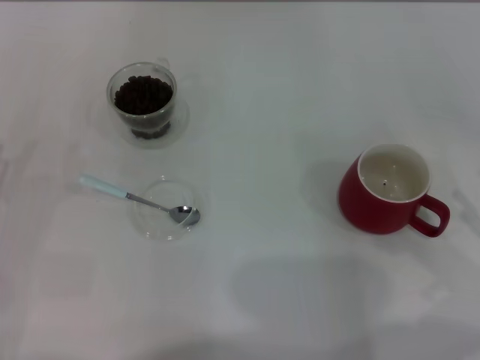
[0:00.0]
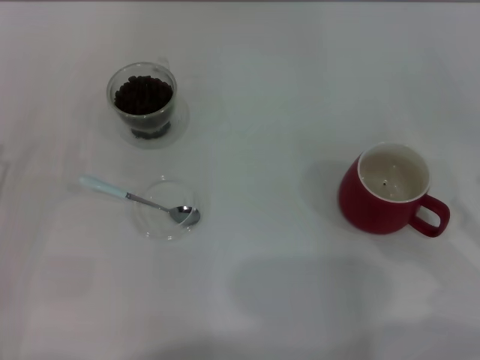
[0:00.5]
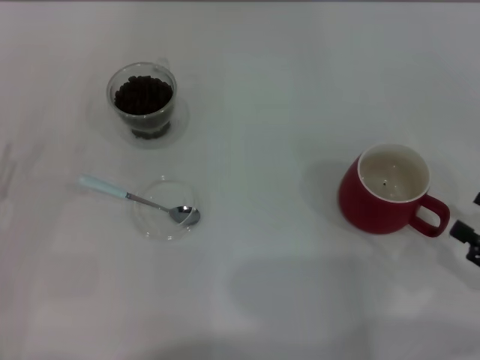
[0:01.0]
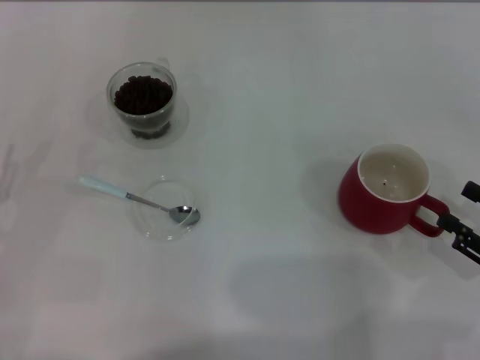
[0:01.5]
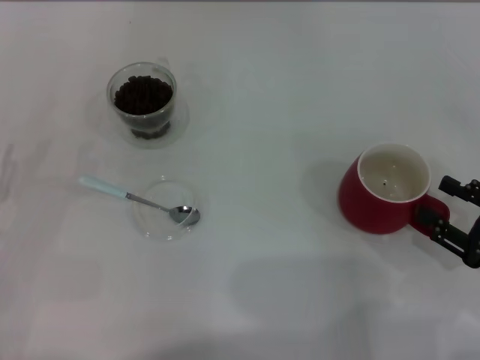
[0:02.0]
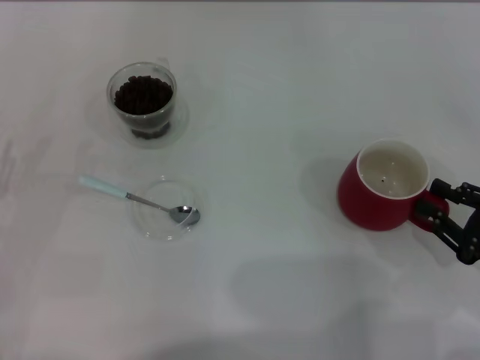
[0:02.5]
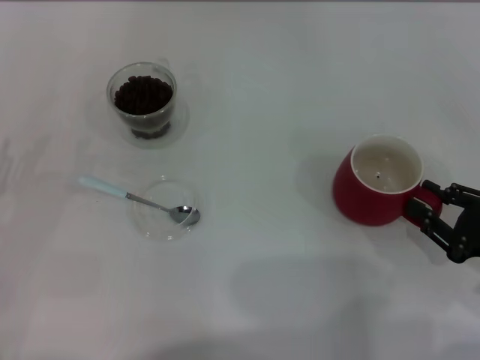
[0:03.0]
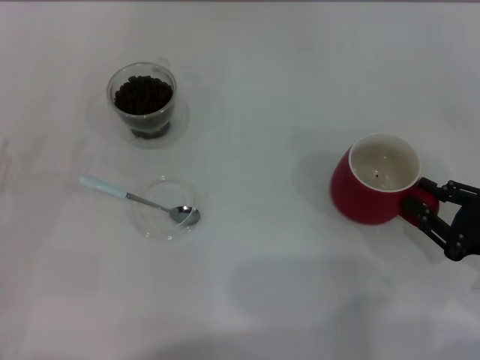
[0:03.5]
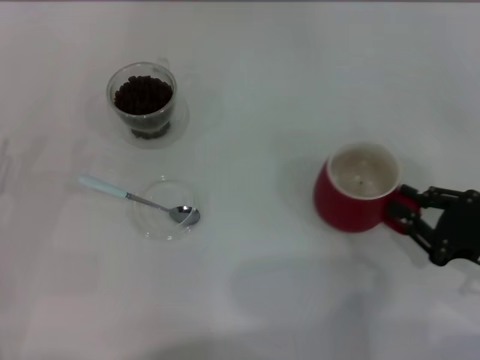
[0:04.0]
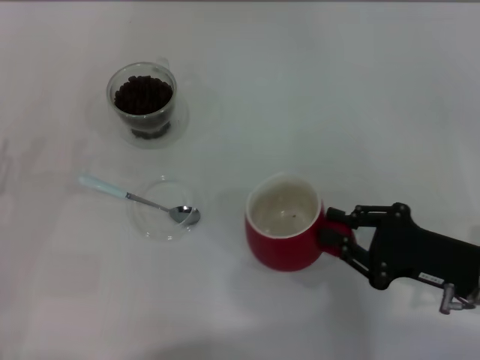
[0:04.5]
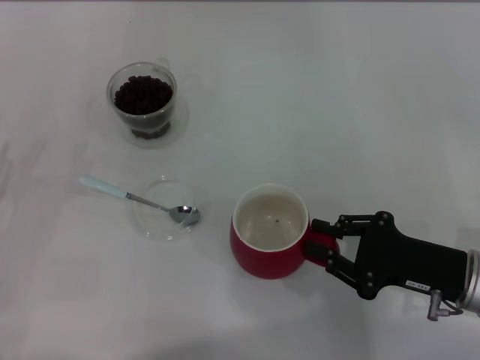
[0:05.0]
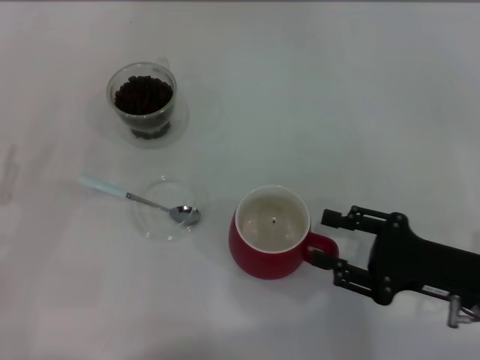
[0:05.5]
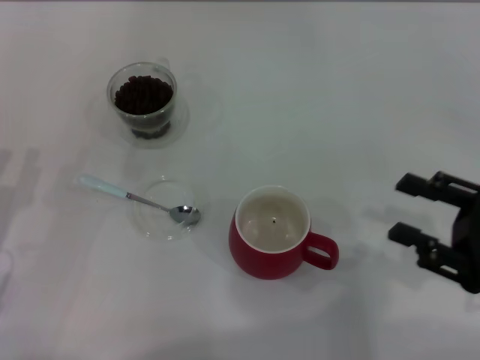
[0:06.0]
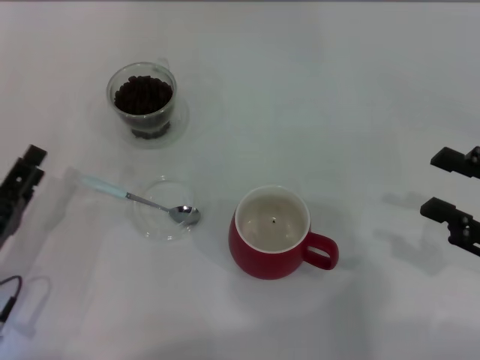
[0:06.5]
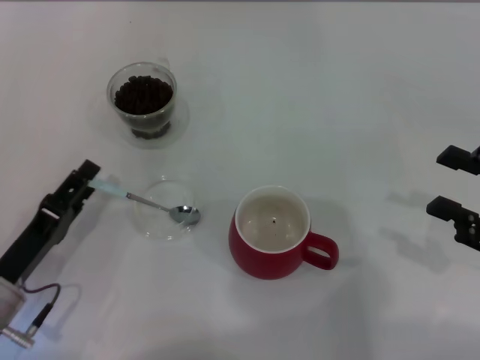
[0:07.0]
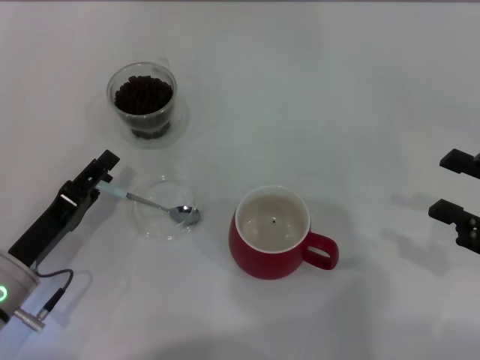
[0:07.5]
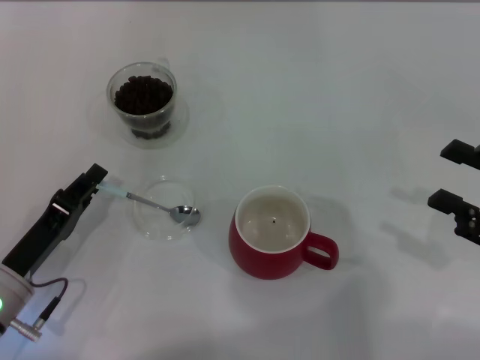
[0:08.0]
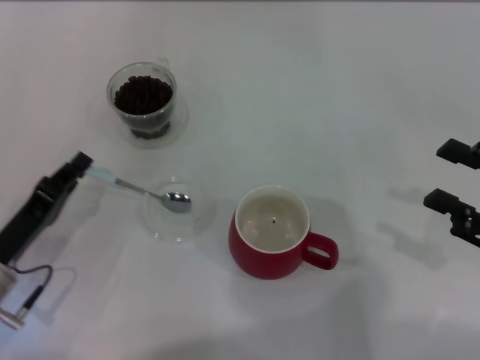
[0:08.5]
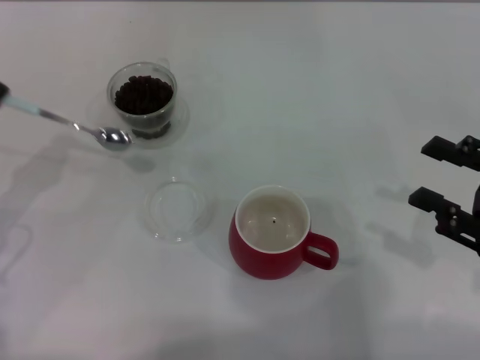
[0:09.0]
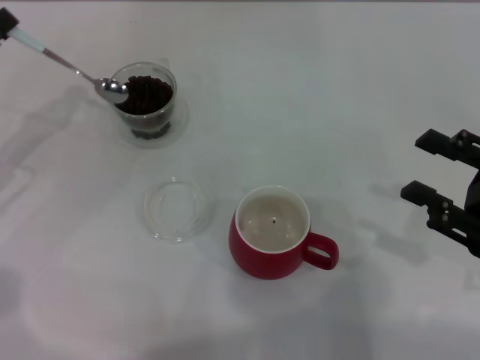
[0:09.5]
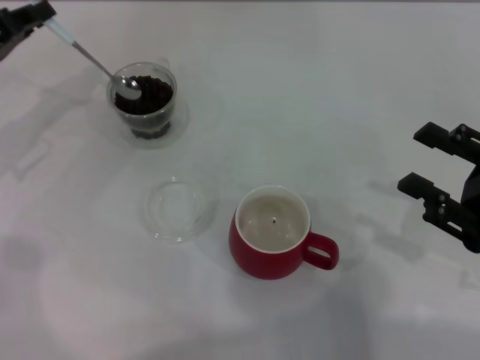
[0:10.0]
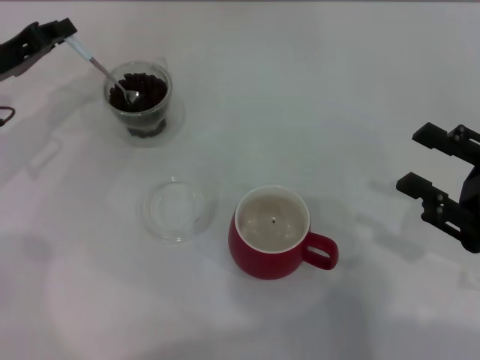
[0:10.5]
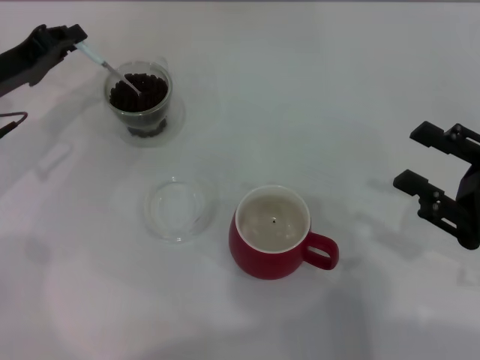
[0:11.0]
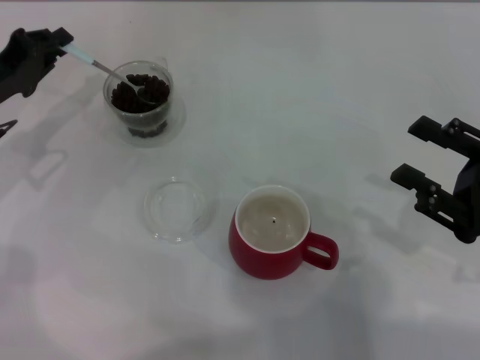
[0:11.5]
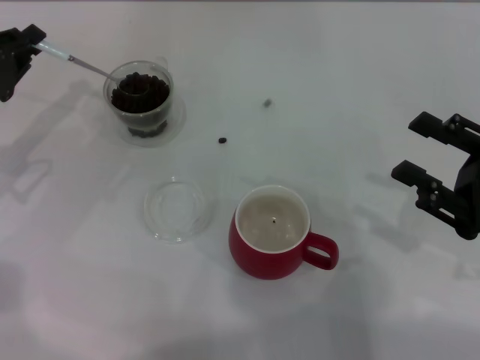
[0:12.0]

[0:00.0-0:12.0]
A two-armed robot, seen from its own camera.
Task of the whole recording: Use a blue spoon to take out the coffee beans from the glass and pour them into the red cup.
Step, 0:00.0 to 0:05.5: Move the cup to the center of view with the left gripper.
Step, 0:06.0 to 0:08.5: Pick up the spoon with the right gripper.
0:00.0 to 0:02.0: The right gripper ends up about 5 cm from where it was.
0:02.0 to 0:04.0: The right gripper closes.
0:04.0 to 0:06.0: The right gripper opens its fingers.
0:06.0 to 0:08.0: The left gripper travels to the right by some 5 cm, and closes its fingers.
0:08.0 to 0:10.0: The left gripper travels forward and upward by roughly 20 cm, and closes up.

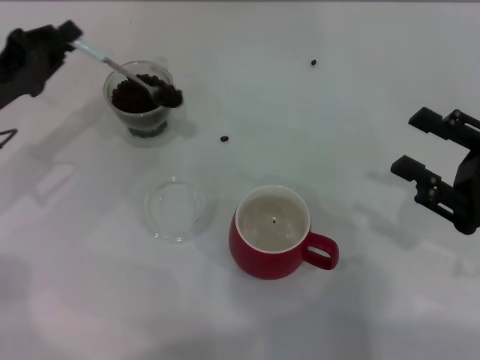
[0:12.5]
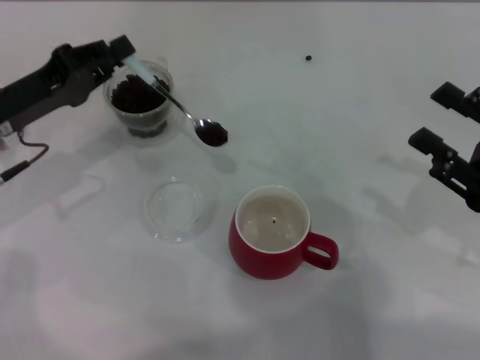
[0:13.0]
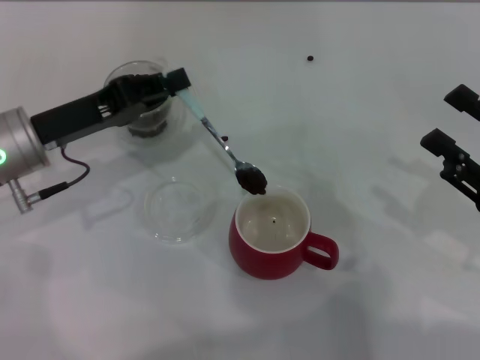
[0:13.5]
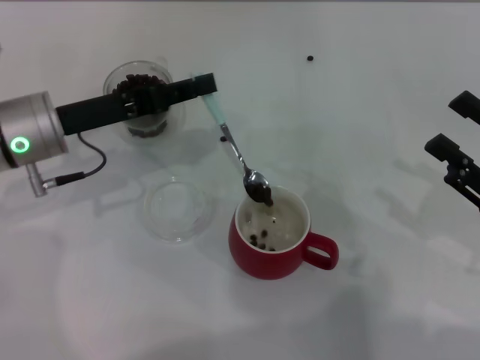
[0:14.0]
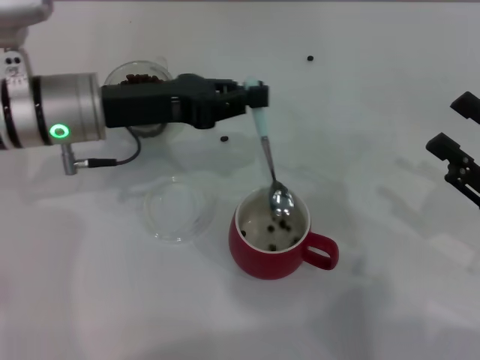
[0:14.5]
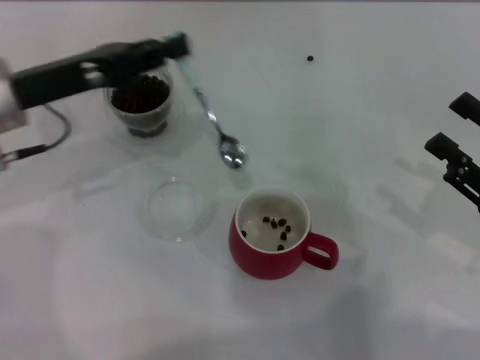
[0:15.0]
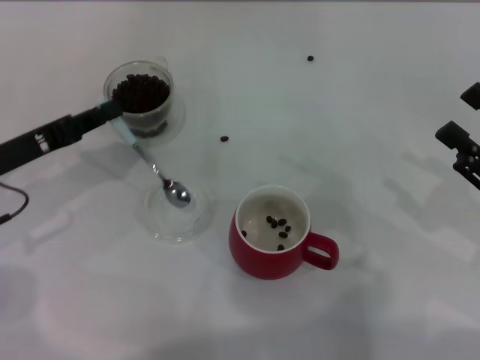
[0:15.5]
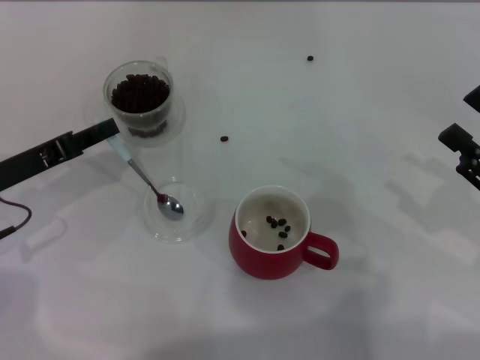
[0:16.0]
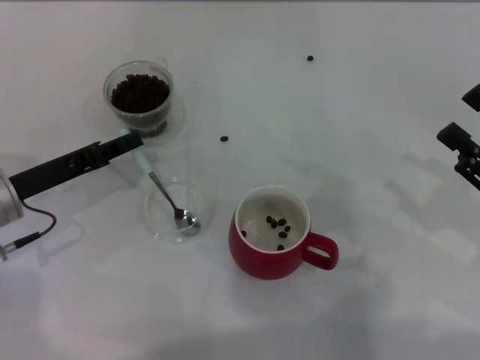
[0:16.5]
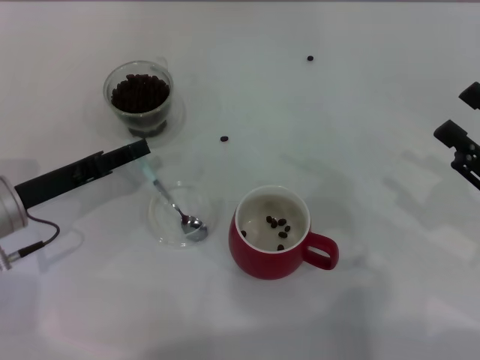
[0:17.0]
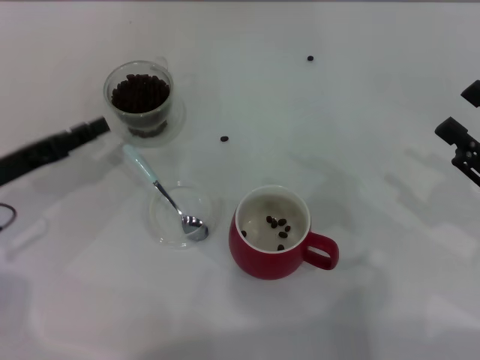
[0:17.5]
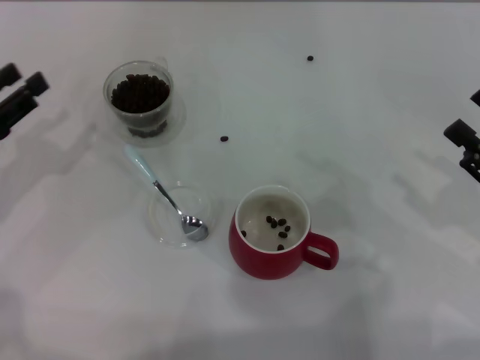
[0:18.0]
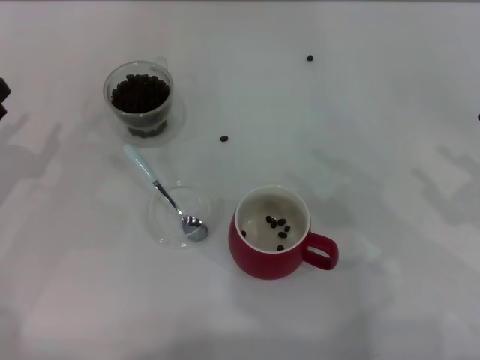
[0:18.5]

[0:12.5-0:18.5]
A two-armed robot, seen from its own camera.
Task of the whole recording: Use a blue spoon to take out the coffee beans from the glass and pour them into the red cup.
Step, 0:12.5 to 0:14.5: Scoop a spoonful of beans into the cup with the right gripper.
0:12.5 to 0:14.5: The left gripper travels to the right by approximately 10 cm.
0:14.5 to 0:16.5: The left gripper heads to the left, downward and backward, covering about 15 cm.
0:16.5 to 0:18.5: The left gripper moves to the left, about 10 cm, and opens its fingers.

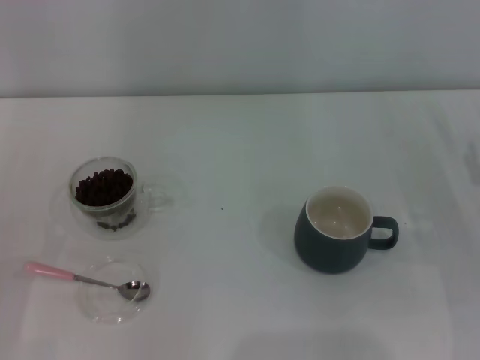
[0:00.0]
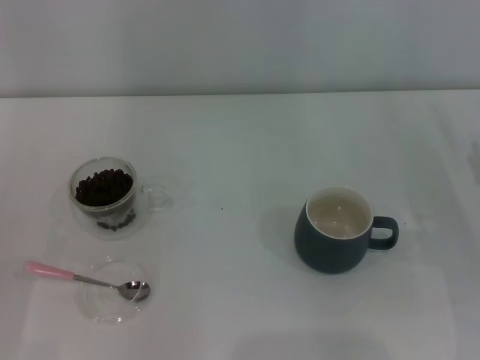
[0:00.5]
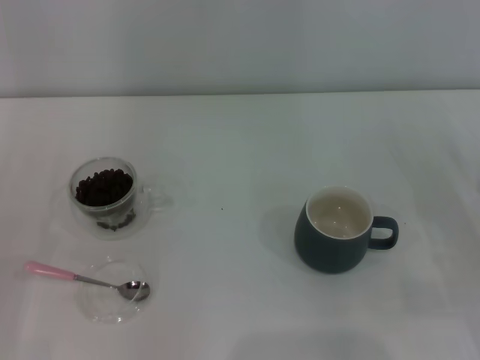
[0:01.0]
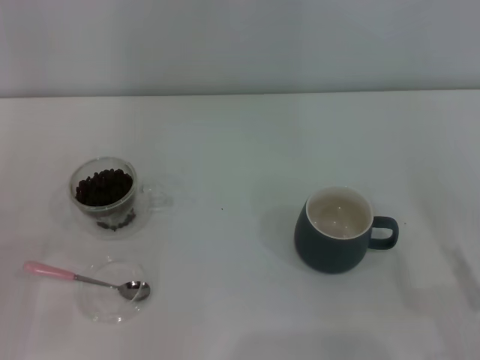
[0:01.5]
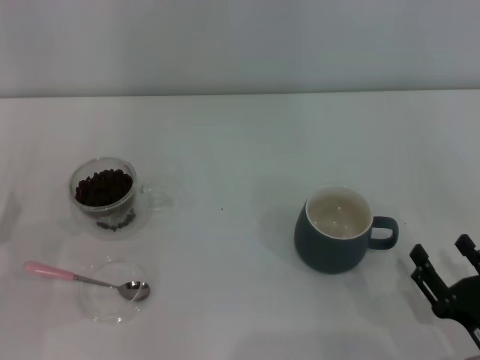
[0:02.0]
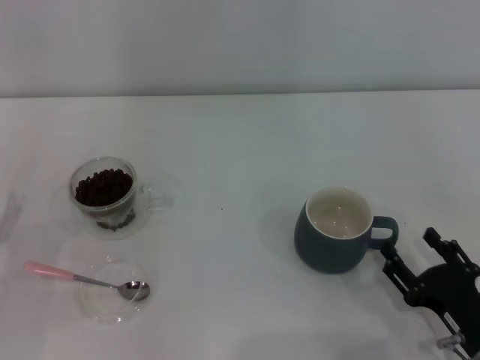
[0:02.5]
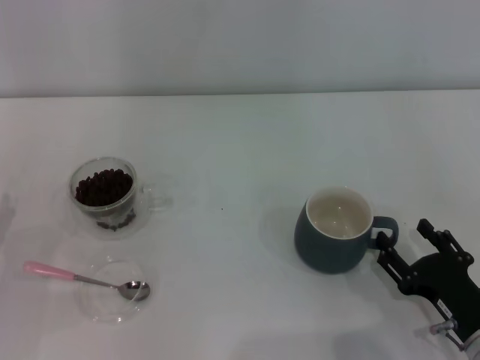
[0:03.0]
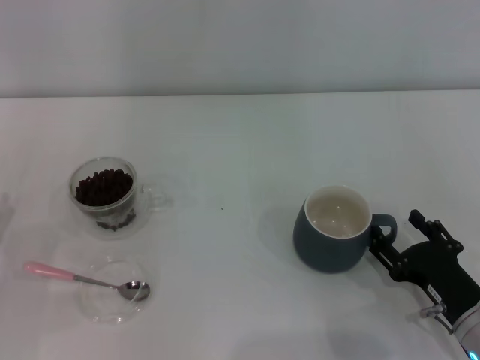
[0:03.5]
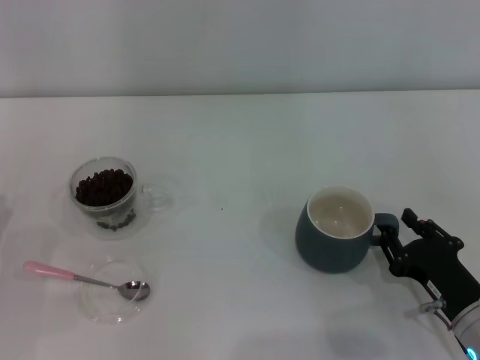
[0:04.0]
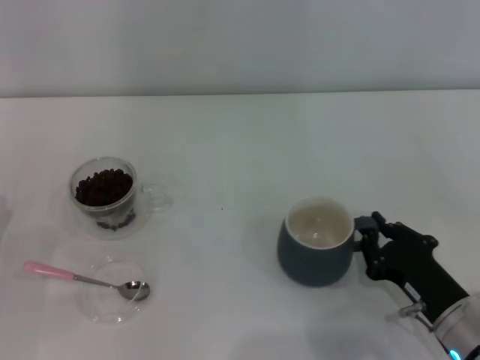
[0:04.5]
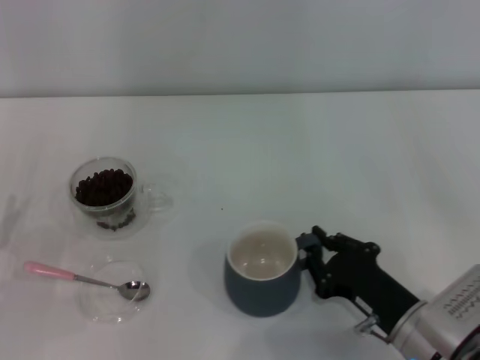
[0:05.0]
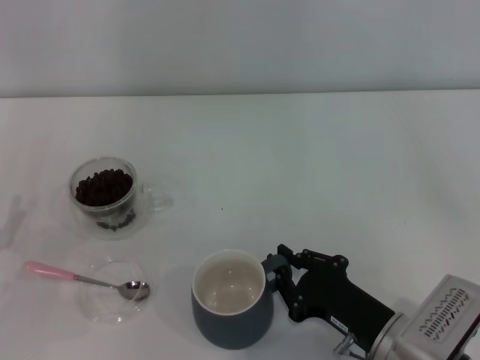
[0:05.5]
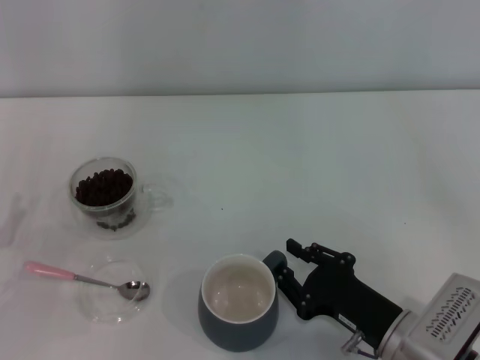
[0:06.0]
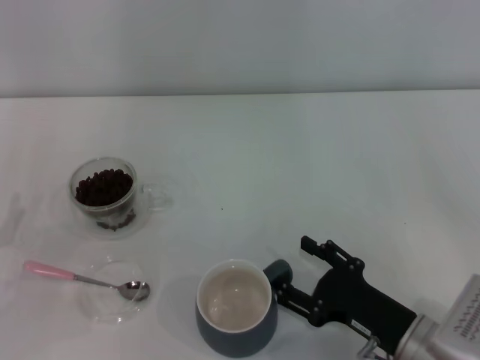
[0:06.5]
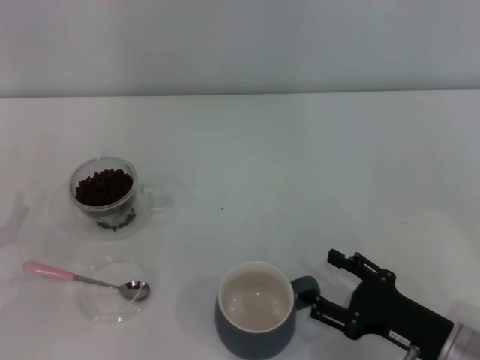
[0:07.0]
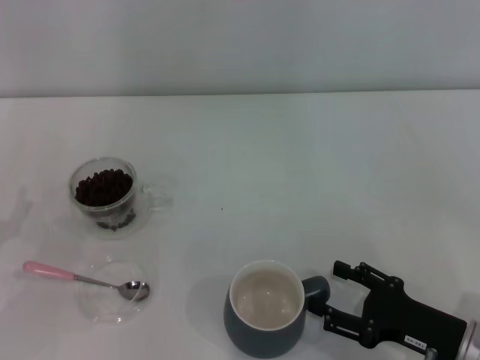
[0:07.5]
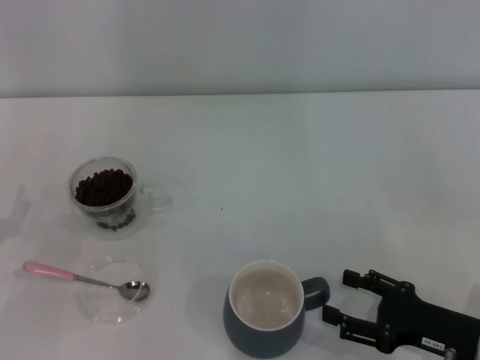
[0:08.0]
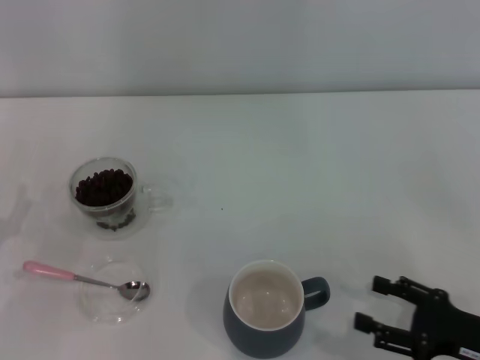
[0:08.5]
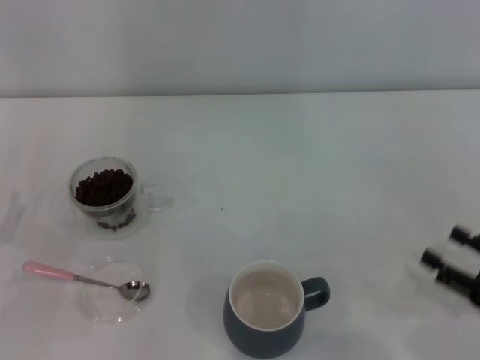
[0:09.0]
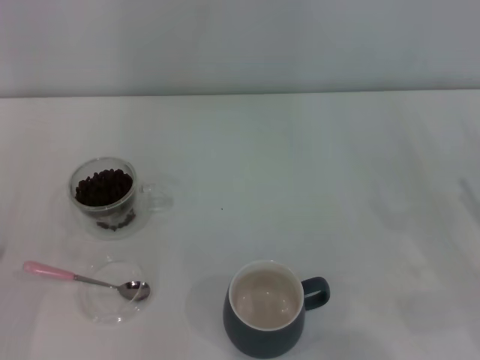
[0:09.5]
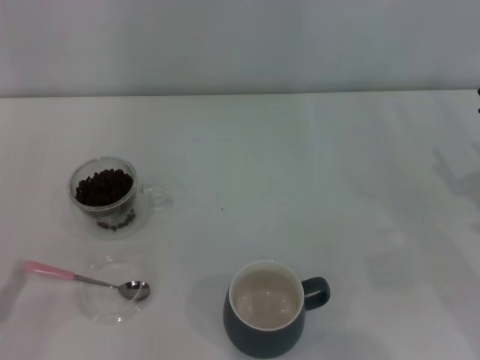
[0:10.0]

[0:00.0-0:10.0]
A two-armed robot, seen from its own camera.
Task of the whole recording: Use a pink spoon to take out the coffee beans from the glass and pour them into the gray cup.
Step, 0:00.0 to 0:08.0: Move the cup to the center of view with the left gripper.
0:00.0 to 0:02.0: The right gripper is displaced backward and to the left by approximately 20 cm.
0:02.0 to 0:04.0: The right gripper goes roughly 5 cm forward, and closes.
0:04.0 to 0:06.0: The right gripper is displaced to the left by roughly 5 cm.
0:06.0 to 0:08.0: The right gripper moves to the right, roughly 10 cm, and opens its fingers.
0:08.0 to 0:10.0: The right gripper shifts roughly 10 cm forward, to the right and upward.
